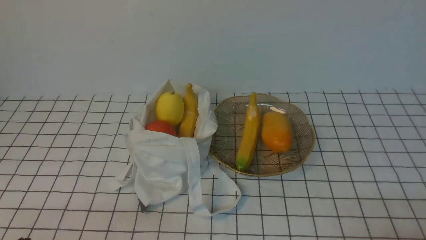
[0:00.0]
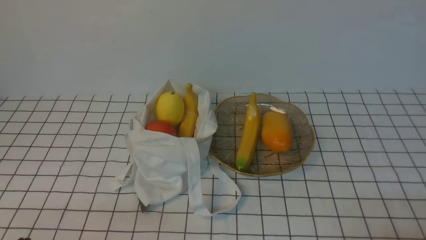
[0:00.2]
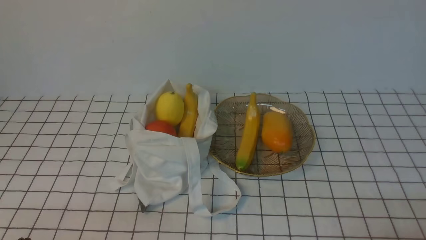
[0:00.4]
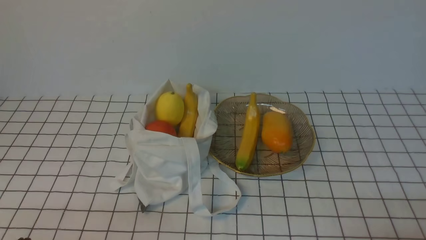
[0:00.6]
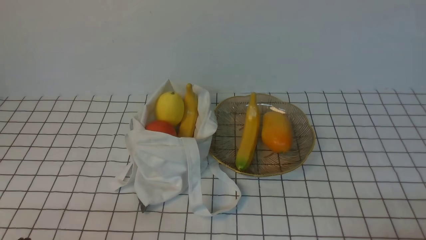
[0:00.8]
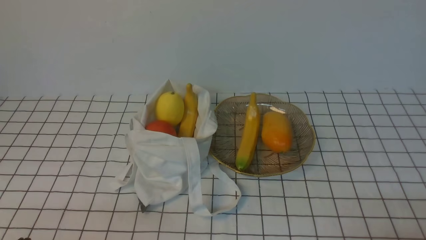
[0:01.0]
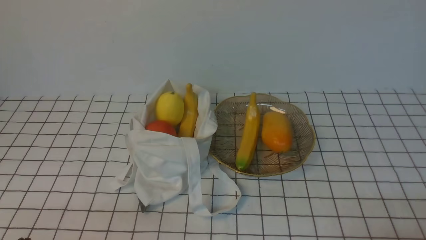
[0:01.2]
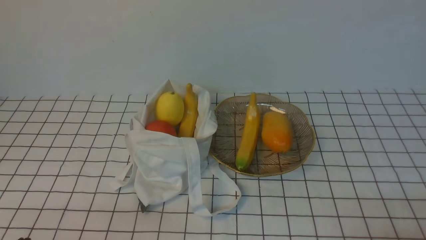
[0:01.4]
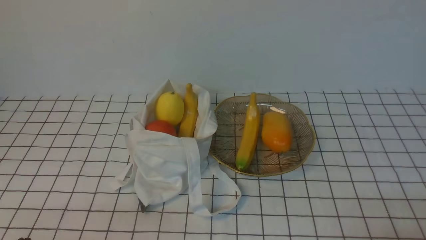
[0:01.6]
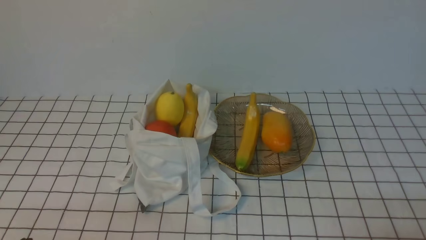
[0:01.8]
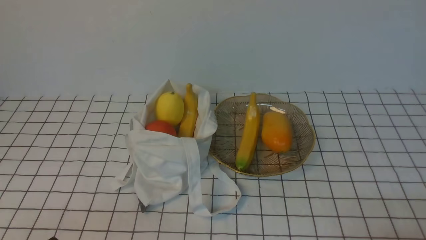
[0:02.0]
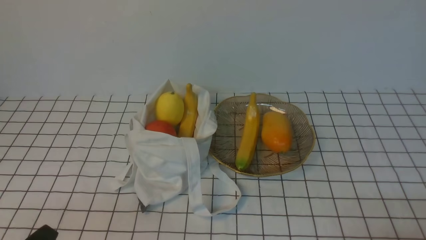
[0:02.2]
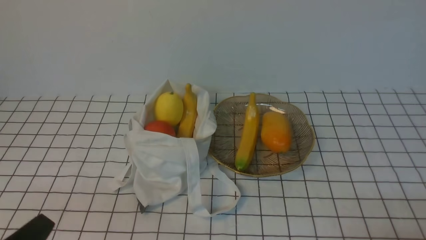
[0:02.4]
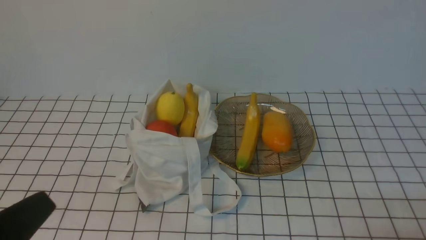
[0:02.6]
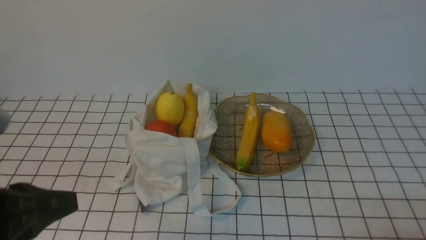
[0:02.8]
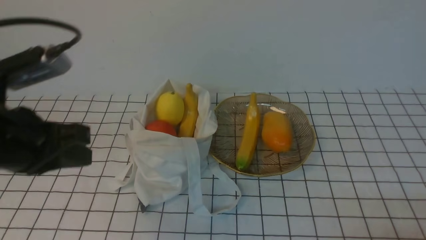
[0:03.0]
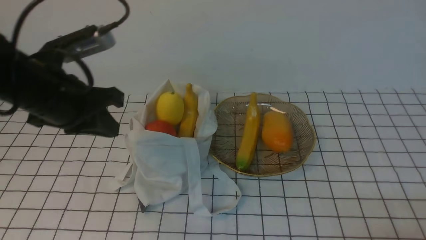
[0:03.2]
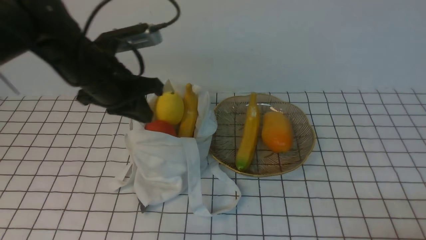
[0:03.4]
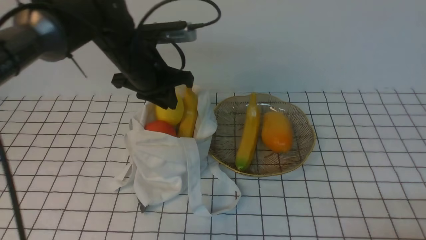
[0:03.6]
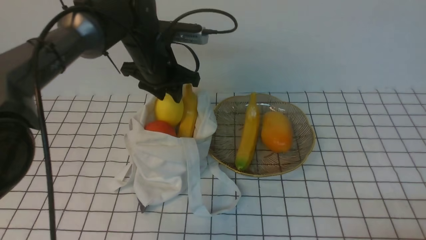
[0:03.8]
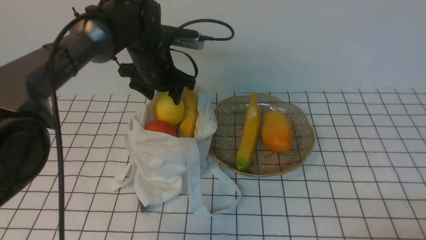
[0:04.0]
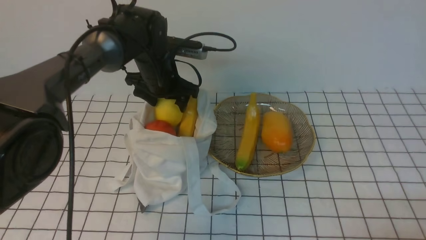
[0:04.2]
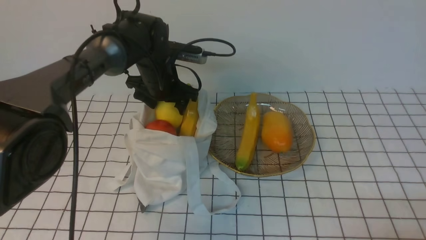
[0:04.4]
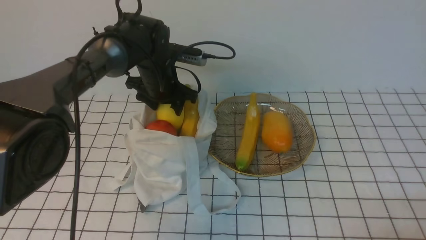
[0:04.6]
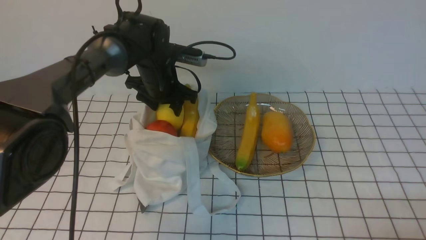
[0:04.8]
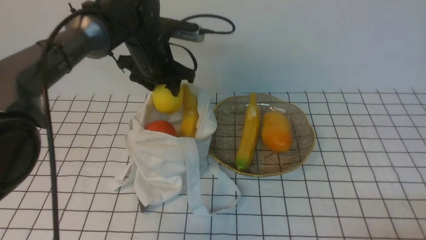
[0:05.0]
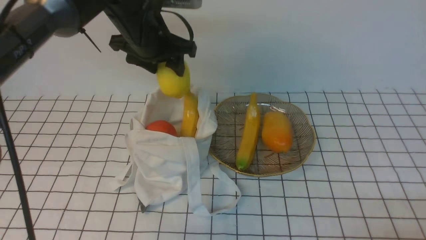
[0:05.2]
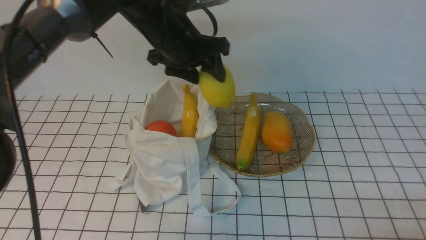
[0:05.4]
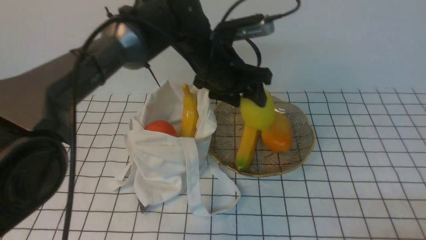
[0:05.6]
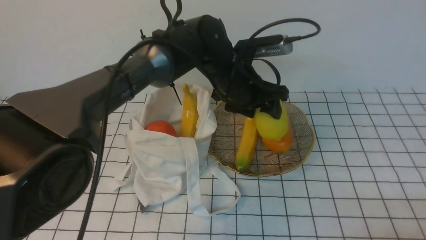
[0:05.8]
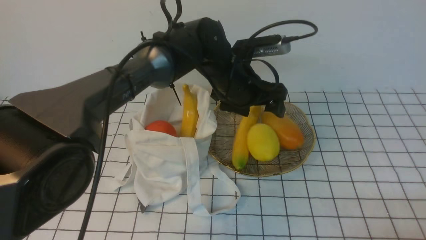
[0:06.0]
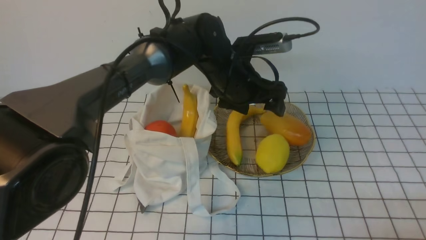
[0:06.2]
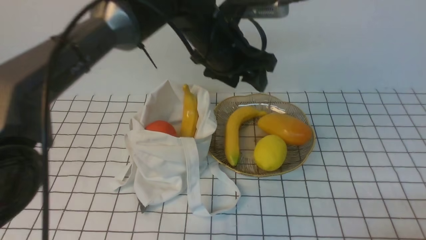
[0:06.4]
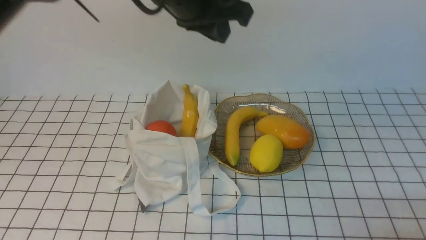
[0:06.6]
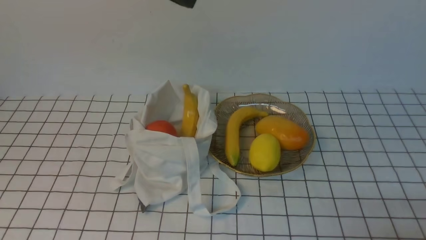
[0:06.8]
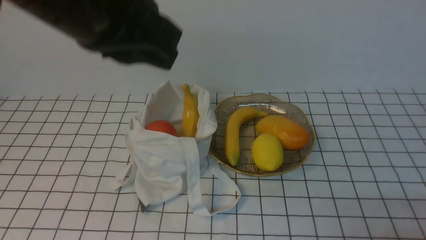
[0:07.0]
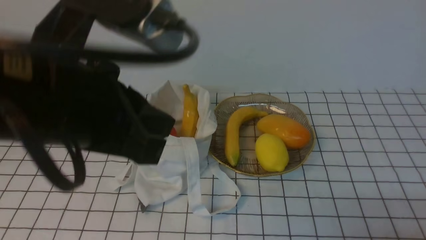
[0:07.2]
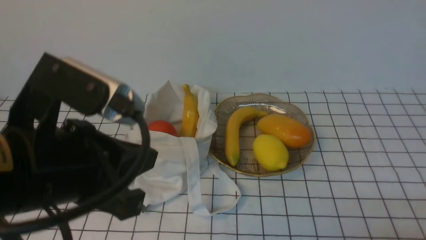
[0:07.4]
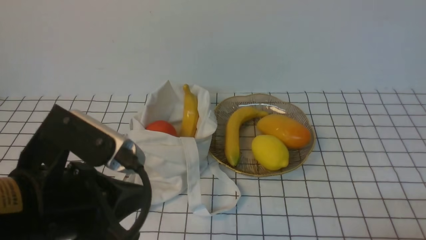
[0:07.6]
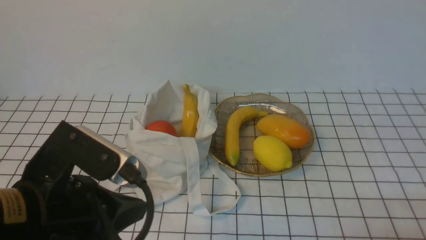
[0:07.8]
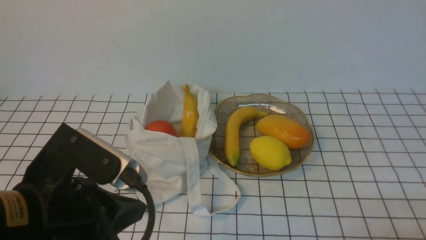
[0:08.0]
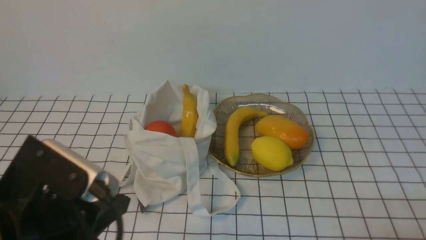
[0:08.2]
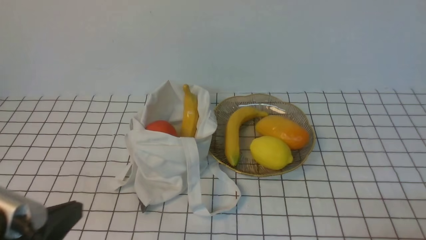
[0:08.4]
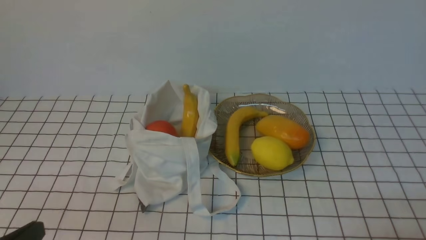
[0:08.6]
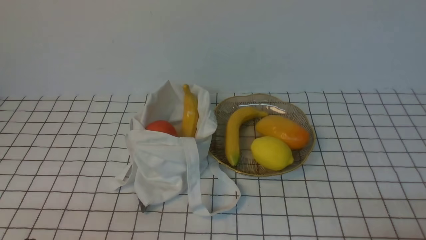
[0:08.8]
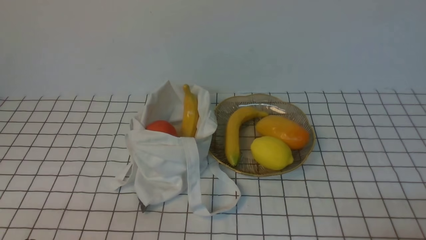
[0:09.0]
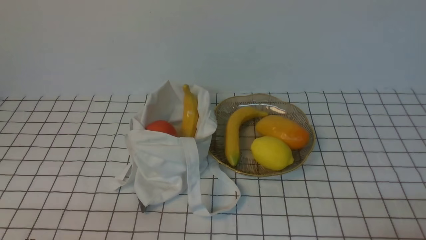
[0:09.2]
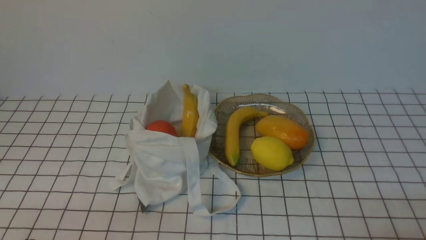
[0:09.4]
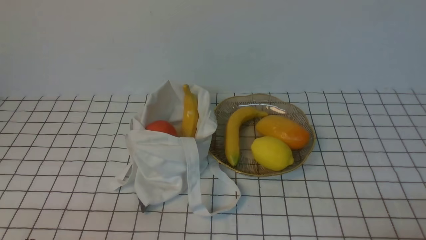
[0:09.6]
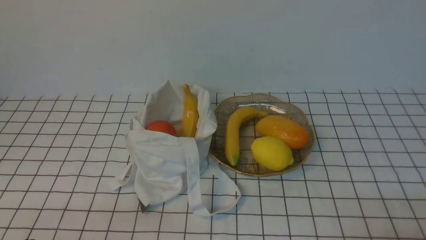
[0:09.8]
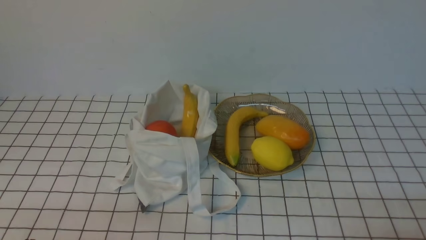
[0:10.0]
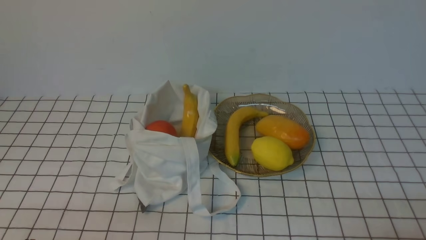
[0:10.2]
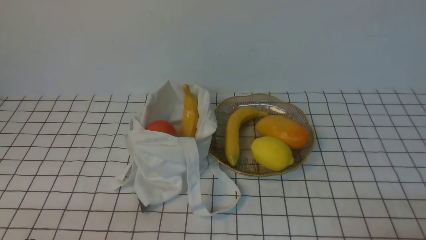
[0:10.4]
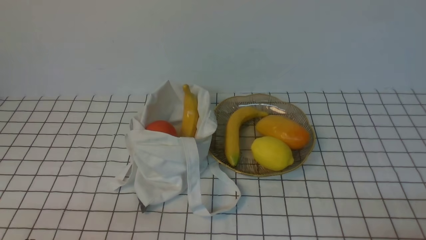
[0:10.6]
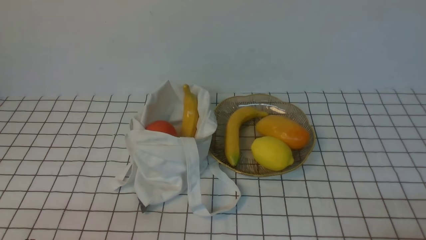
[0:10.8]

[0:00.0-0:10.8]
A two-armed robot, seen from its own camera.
Step, 0:00.0 to 0:05.0: use the left arm to grab a lemon from the bag.
Step, 0:05.2 to 0:06.4: use the left arm to put the lemon into the empty plate on the right.
0:01.6 to 0:03.0: The left gripper travels upward and forward by some 20 cm.
0:03.0 to 0:04.6: The left gripper goes roughly 30 cm forward, and opens up.
0:04.6 to 0:06.2: The left gripper is displaced to the right and backward by some 15 cm.
0:06.2 to 0:07.8: The left gripper is displaced backward and to the left by some 35 cm, and closes up.
0:07.8 to 0:09.2: The left gripper is displaced downward, to the left and backward by approximately 20 cm.
0:09.2 to 0:10.8: Both grippers stay put.
